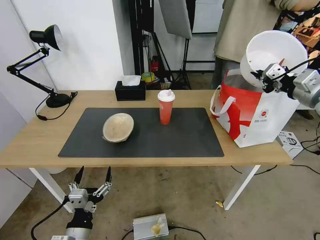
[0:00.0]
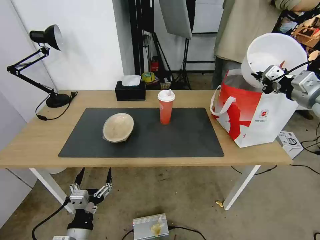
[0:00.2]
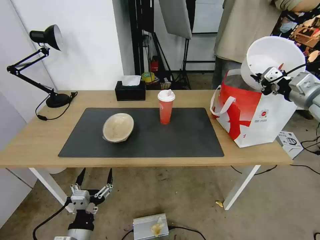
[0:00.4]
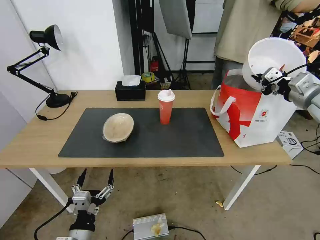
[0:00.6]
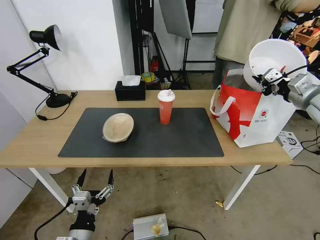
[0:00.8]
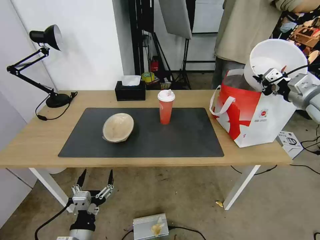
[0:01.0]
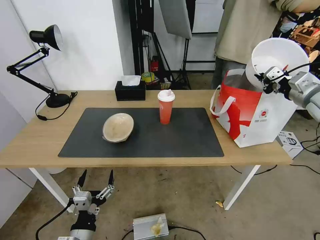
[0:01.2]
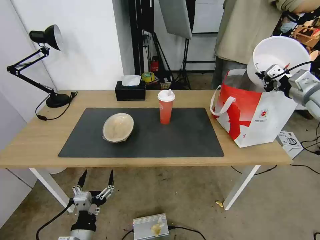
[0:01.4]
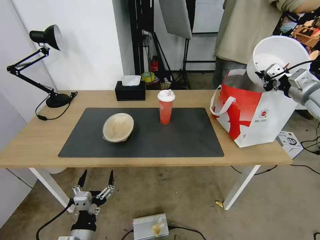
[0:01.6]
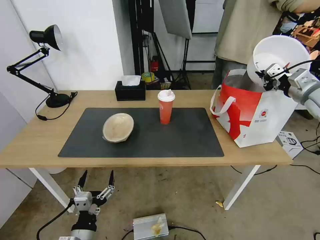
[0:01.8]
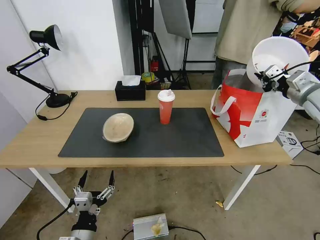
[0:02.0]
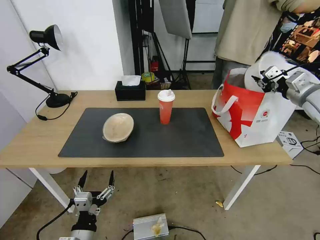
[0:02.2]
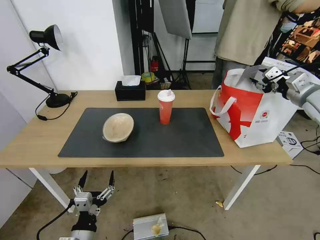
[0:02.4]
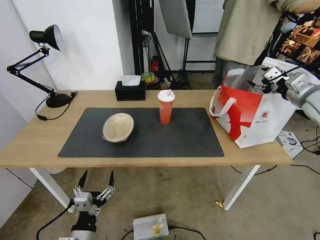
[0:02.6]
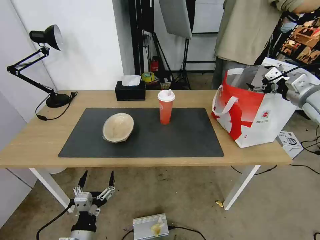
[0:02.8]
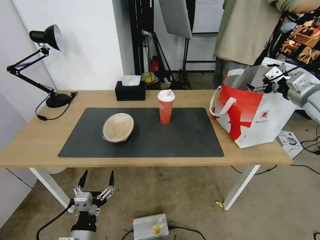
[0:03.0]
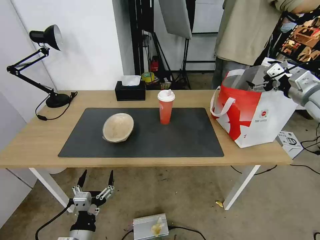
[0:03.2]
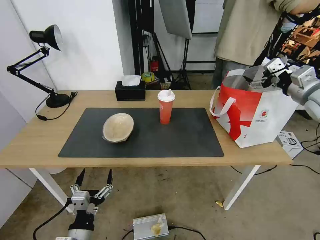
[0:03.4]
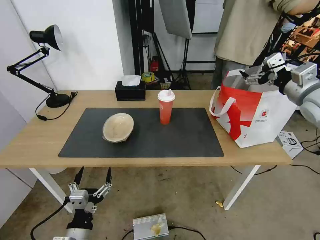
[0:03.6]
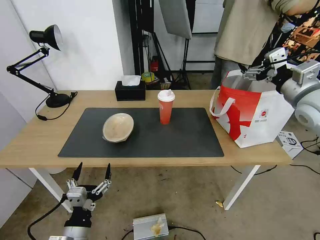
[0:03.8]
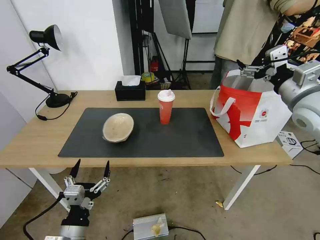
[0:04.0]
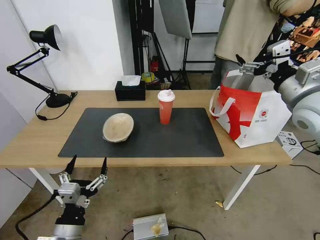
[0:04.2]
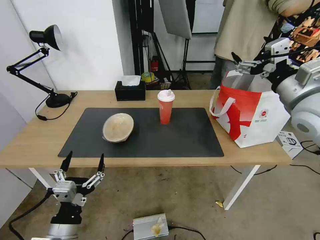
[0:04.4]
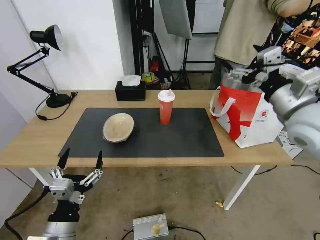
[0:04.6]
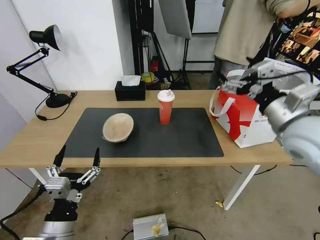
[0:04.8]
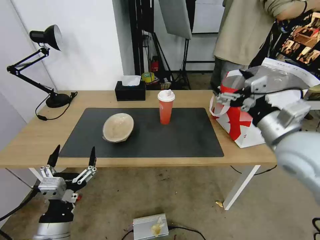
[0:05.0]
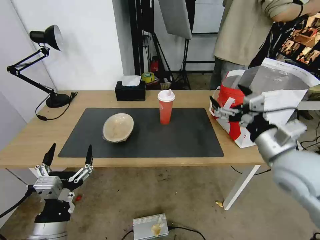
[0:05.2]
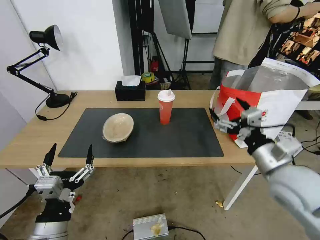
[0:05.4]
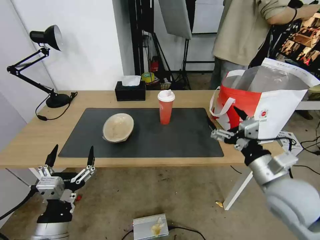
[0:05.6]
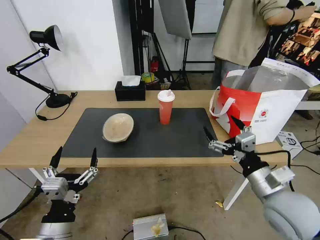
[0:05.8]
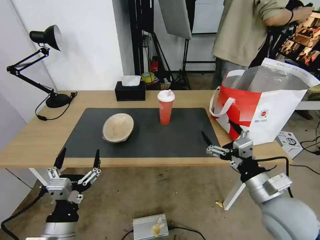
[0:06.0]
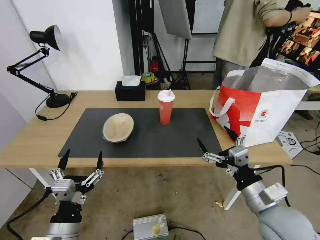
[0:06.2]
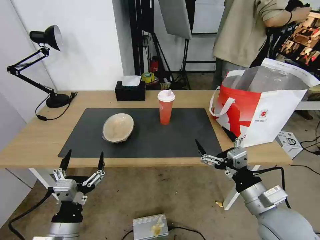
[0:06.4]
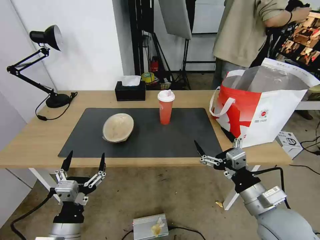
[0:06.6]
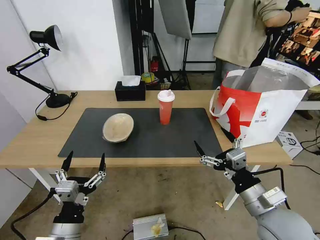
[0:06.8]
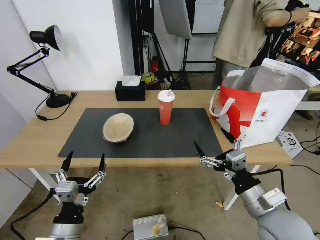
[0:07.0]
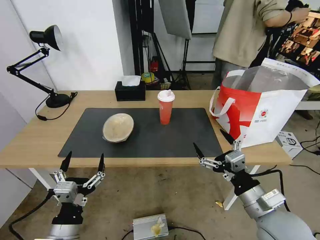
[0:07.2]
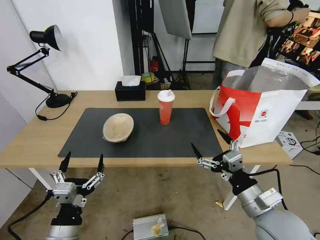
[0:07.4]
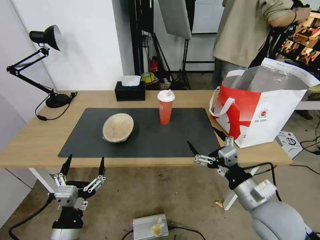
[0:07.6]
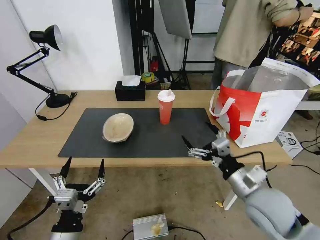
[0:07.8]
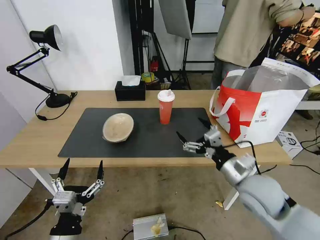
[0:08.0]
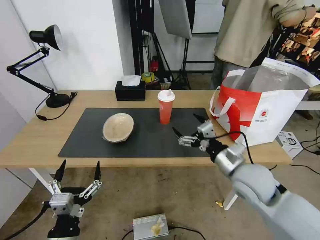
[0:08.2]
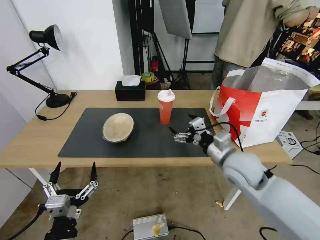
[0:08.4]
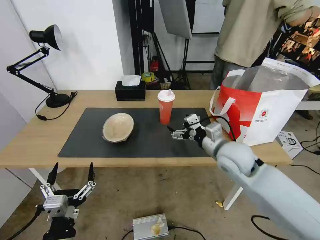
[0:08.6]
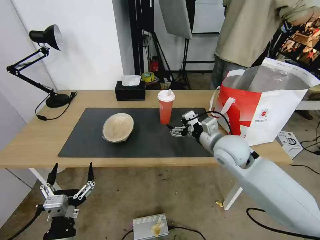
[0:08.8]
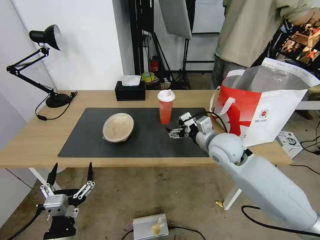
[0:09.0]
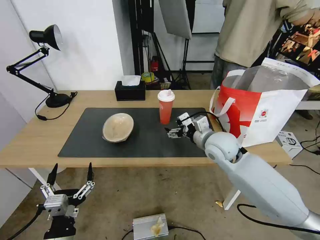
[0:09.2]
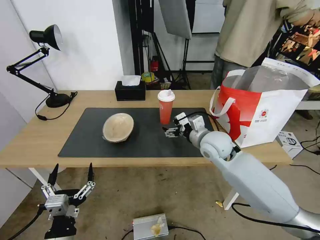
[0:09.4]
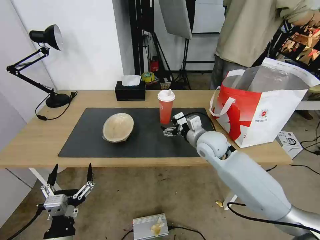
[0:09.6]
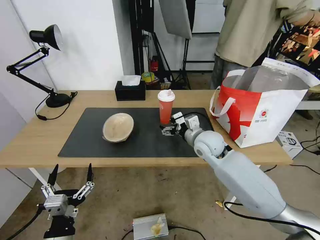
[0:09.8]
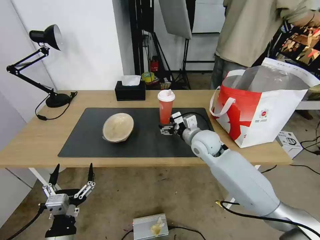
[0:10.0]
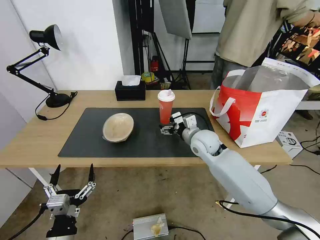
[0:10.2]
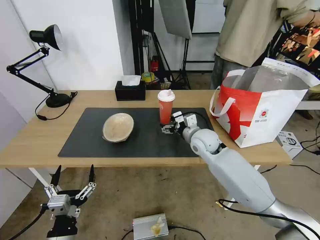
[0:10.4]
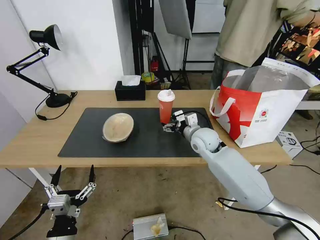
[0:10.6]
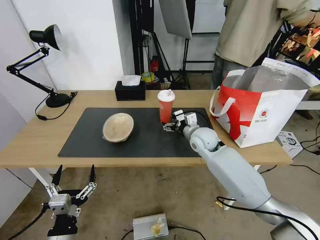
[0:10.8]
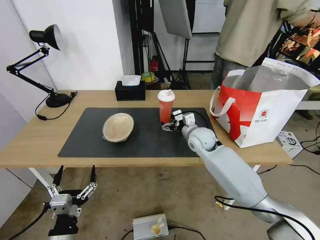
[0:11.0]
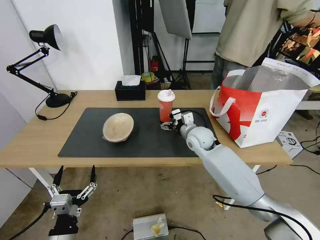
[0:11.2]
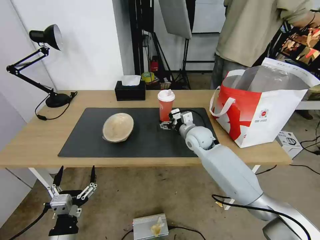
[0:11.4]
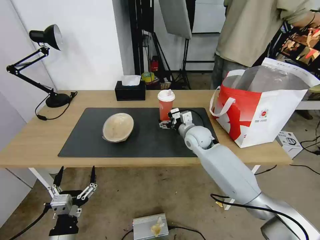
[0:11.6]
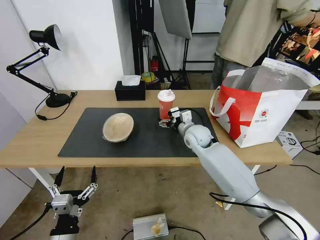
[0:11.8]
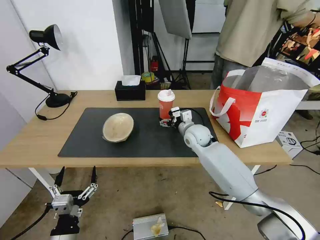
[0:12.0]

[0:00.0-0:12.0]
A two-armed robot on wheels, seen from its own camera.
Task of the whole recording: Pick up the trash from the table and place it into the takeout bag.
0:00.0 to 0:01.6: The right gripper shifts by approximately 5 cm.
0:01.6 to 0:03.0: The right gripper opens its fingers.
0:03.0 to 0:04.4: The left gripper heads upward, covering some 10 cm, while the right gripper heads to the left and backward, covering roughly 15 cm.
0:04.4 to 0:06.0: The right gripper heads downward and backward, covering about 25 cm.
0:06.0 to 0:07.6: There are only small adjustments of the grippers.
0:07.6 to 0:09.0: The right gripper is displaced forward by roughly 20 cm.
0:09.0 to 0:10.4: The right gripper is displaced forward by about 5 cm.
0:10.4 to 0:12.0: The grippers move only a little.

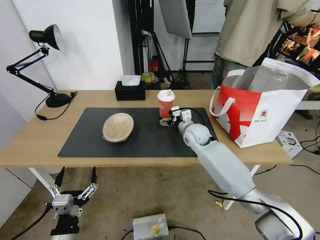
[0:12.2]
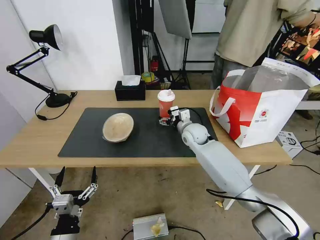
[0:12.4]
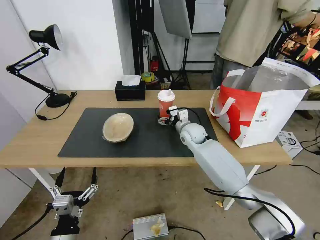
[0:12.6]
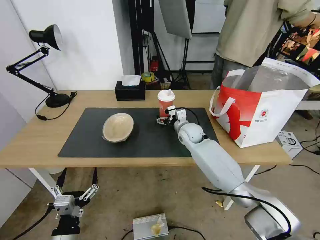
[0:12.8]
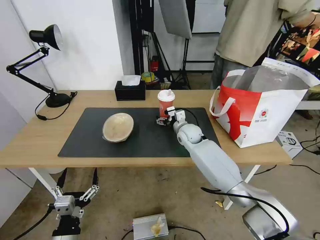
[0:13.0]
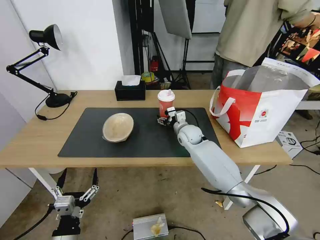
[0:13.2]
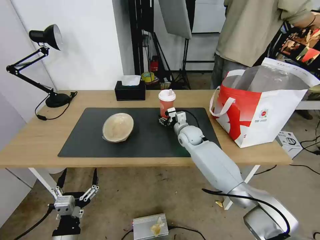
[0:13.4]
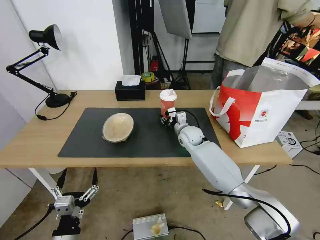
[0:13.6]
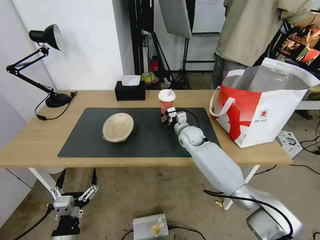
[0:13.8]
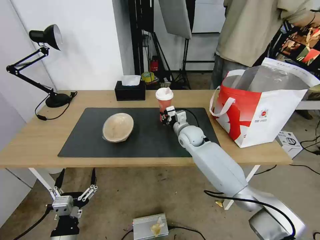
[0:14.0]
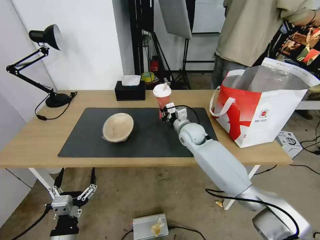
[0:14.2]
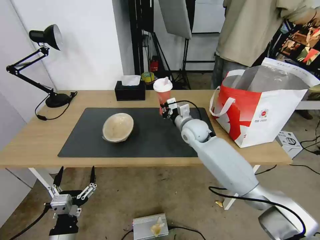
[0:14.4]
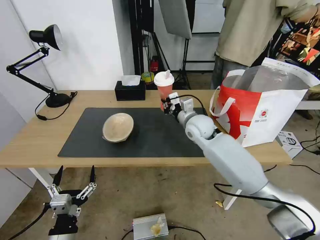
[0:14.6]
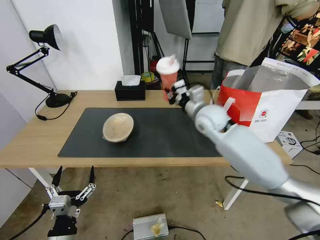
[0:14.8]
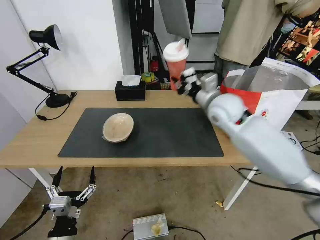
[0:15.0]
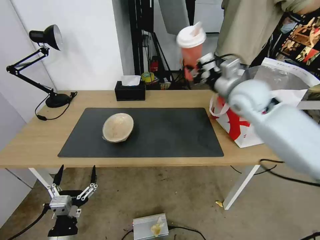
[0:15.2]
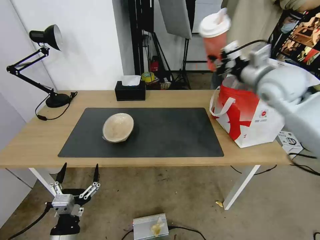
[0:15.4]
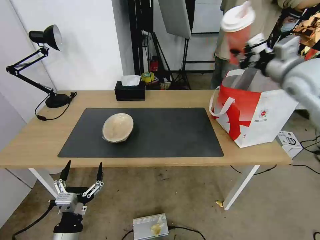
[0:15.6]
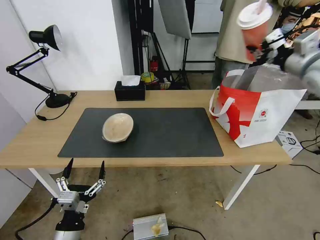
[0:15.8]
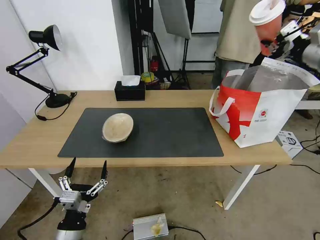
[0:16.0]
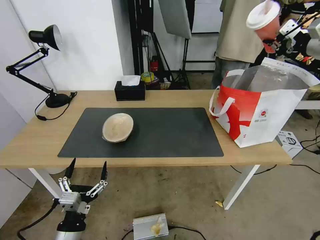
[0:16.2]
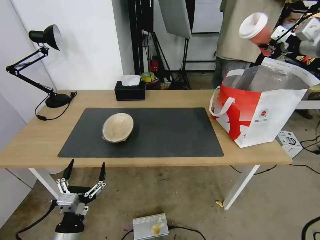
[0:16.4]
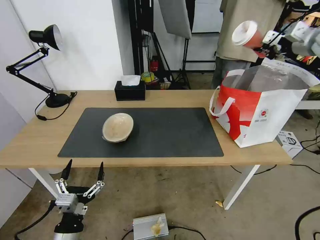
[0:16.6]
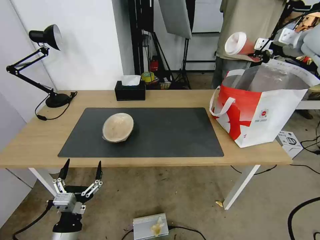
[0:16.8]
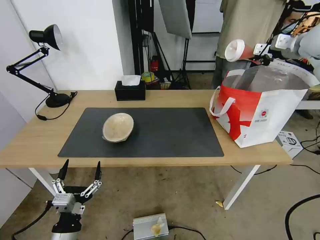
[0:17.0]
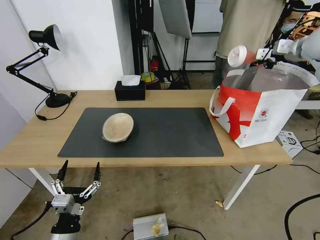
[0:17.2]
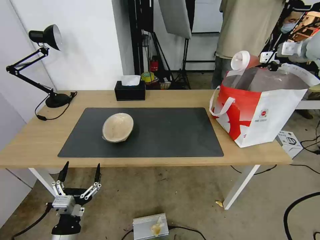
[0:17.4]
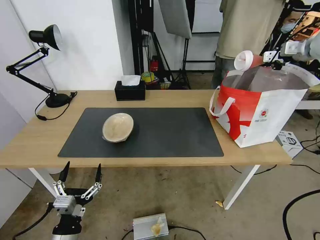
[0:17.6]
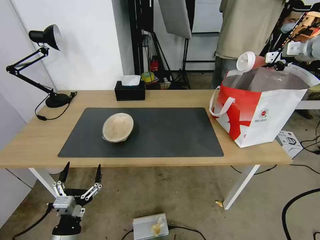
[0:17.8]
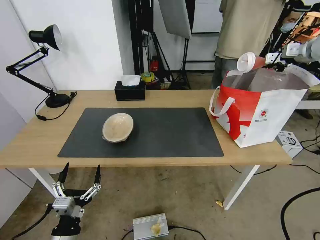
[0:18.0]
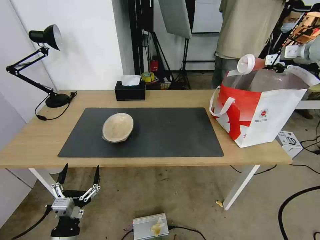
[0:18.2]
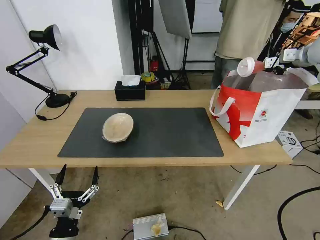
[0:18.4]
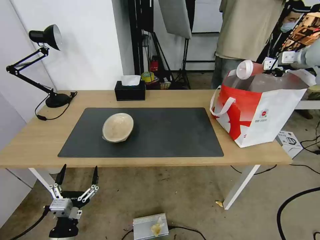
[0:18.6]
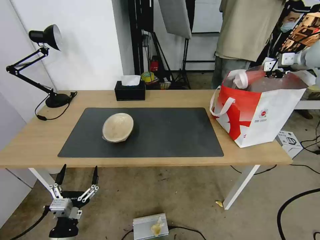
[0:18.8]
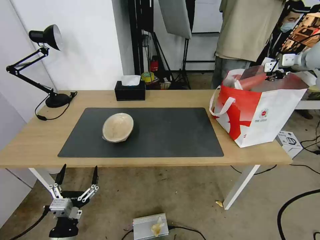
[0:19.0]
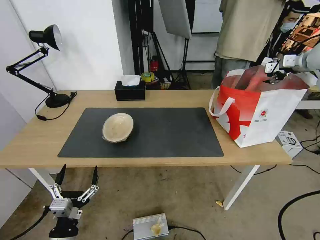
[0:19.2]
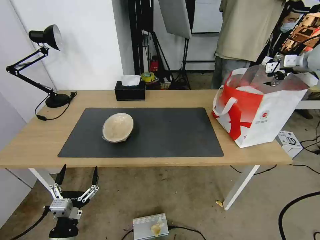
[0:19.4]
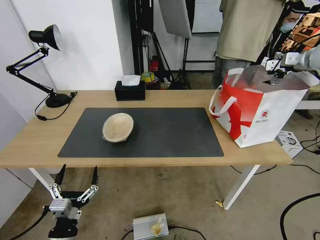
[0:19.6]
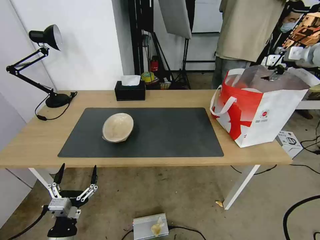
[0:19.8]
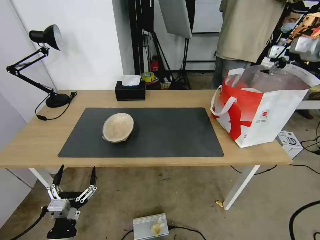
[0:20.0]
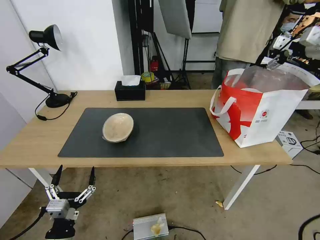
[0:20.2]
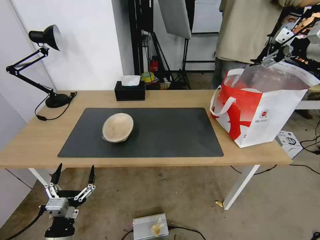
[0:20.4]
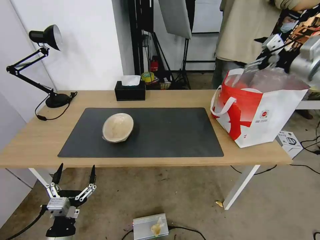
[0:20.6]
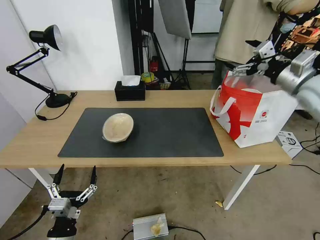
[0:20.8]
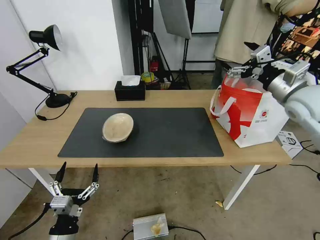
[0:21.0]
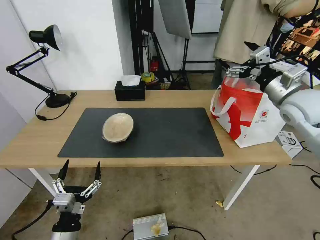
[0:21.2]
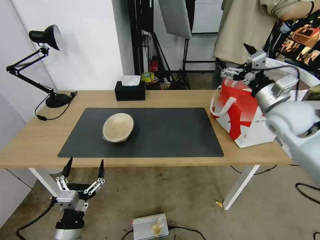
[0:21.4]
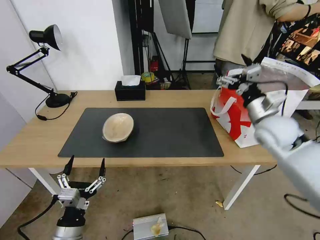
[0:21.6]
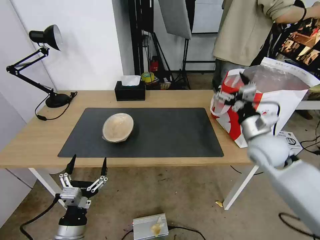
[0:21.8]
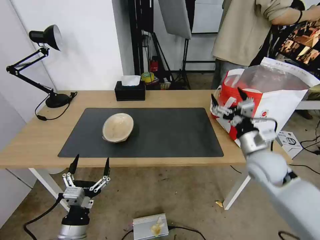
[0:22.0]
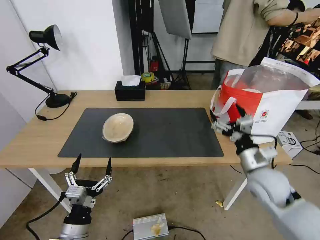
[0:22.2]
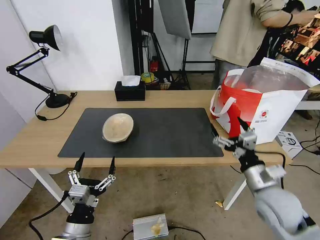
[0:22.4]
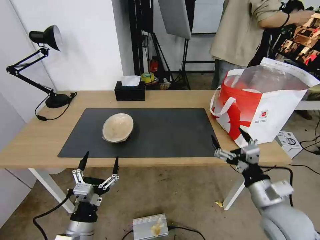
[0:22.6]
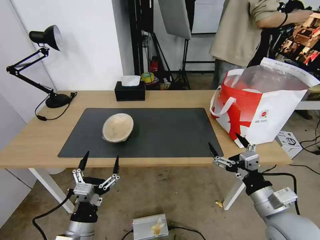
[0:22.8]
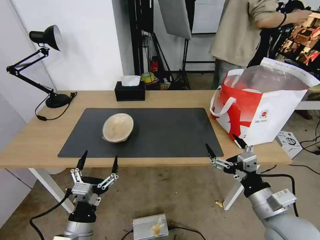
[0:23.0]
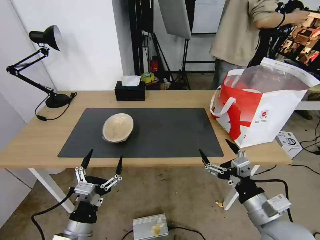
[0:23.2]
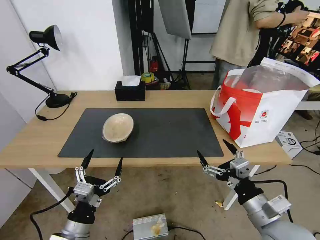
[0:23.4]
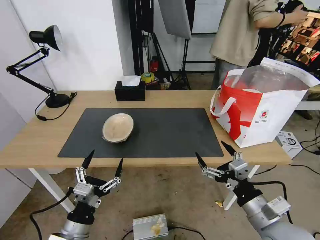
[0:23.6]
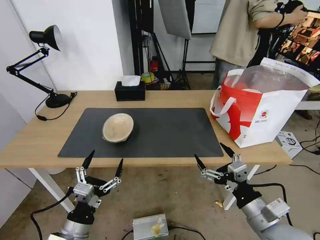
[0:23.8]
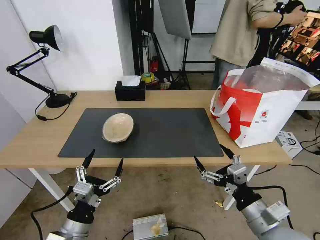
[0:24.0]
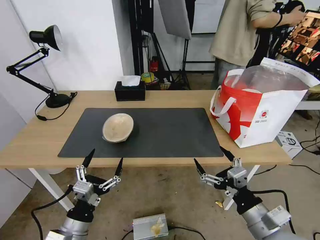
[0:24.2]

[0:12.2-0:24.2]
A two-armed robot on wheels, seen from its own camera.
Task of the whole recording: Pick up the trash from the table and place it into the takeout bag.
0:12.2 to 0:13.8: The right gripper closes its fingers.
0:13.8 to 0:15.2: The right gripper is displaced upward and to the right by about 25 cm.
0:15.2 to 0:16.6: The right gripper heads to the right, upward and forward, covering about 25 cm.
0:16.6 to 0:18.2: The right gripper is displaced to the right and forward by some 10 cm.
0:18.2 to 0:19.8: The right gripper opens its fingers.
0:19.8 to 0:21.2: The right gripper travels backward, to the left and downward by approximately 25 cm.
0:21.2 to 0:22.6: The right gripper heads backward and downward, covering roughly 30 cm.
0:22.6 to 0:24.2: The right gripper shifts roughly 5 cm backward.
